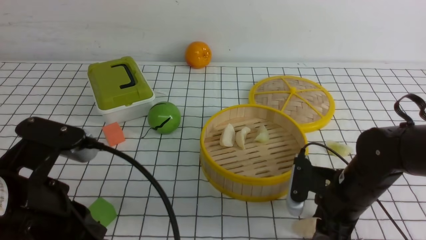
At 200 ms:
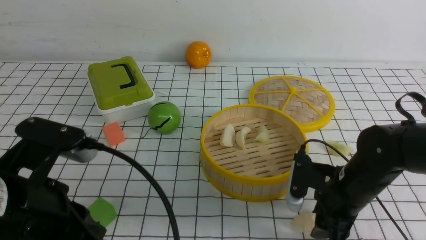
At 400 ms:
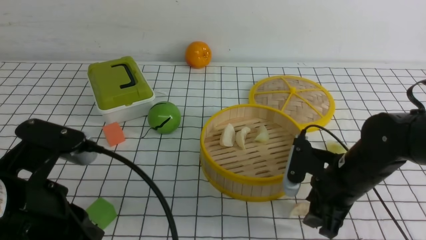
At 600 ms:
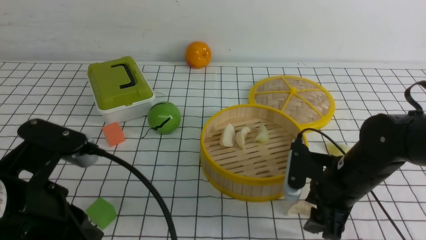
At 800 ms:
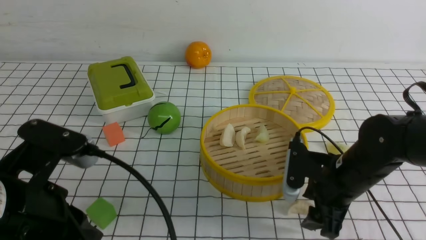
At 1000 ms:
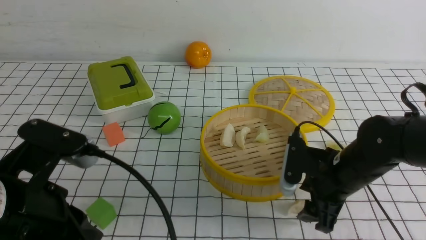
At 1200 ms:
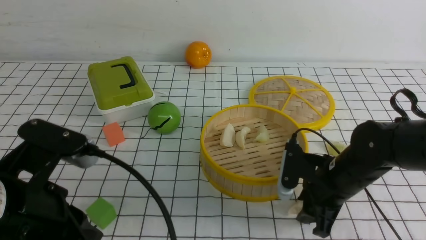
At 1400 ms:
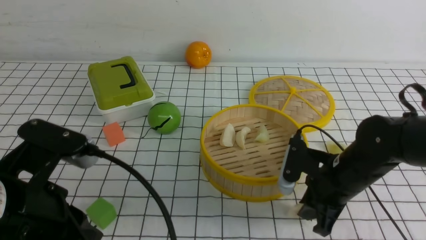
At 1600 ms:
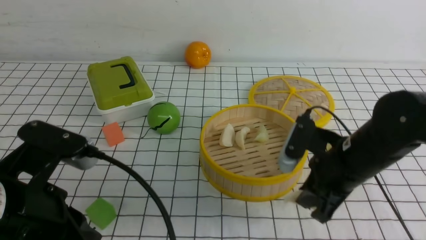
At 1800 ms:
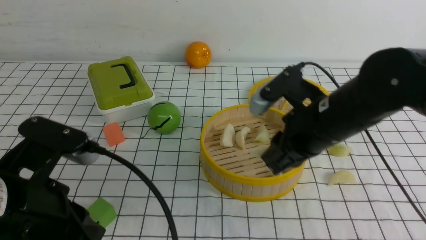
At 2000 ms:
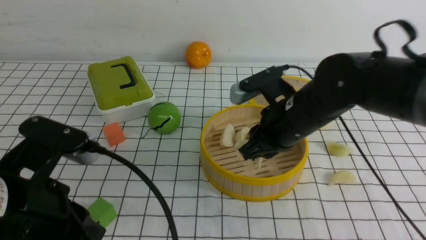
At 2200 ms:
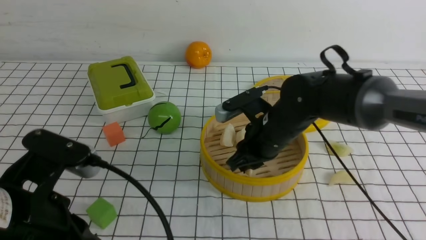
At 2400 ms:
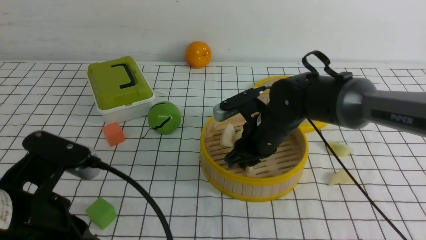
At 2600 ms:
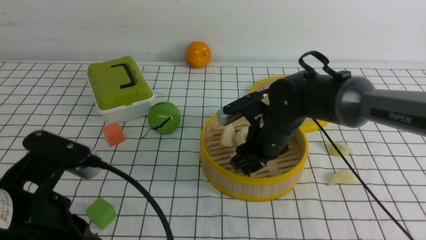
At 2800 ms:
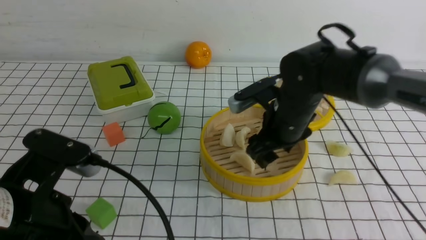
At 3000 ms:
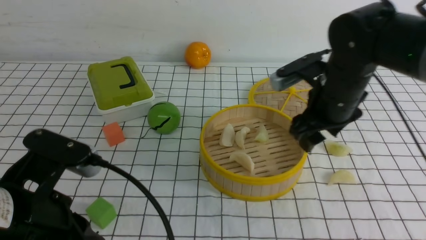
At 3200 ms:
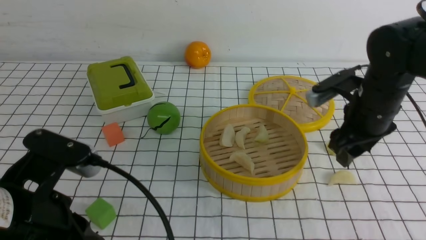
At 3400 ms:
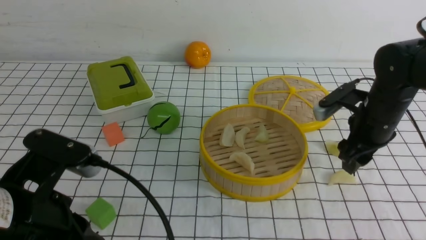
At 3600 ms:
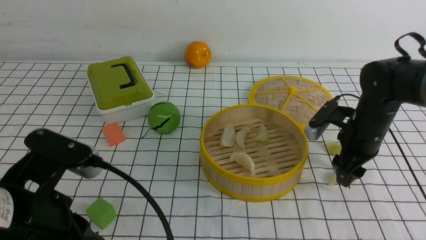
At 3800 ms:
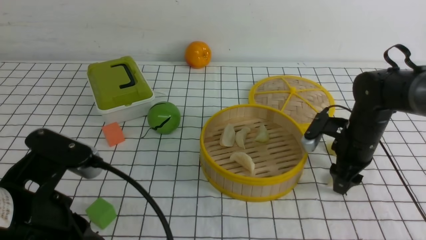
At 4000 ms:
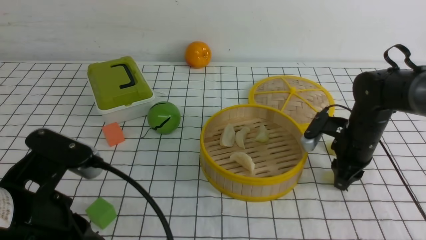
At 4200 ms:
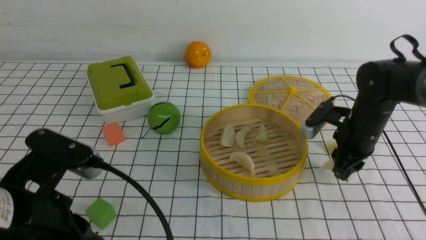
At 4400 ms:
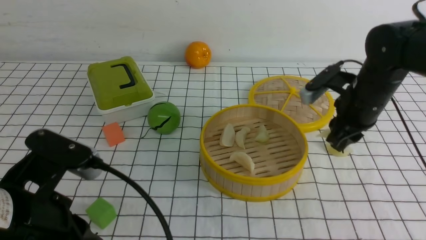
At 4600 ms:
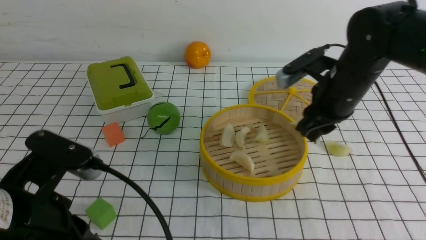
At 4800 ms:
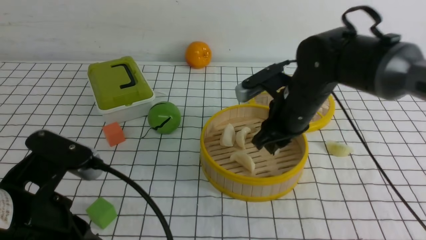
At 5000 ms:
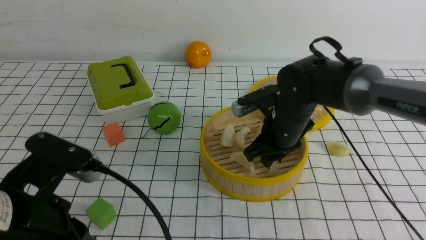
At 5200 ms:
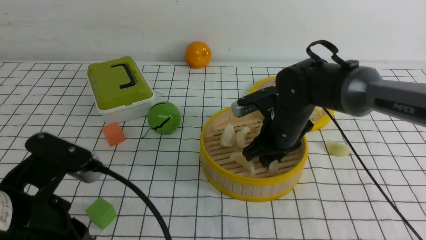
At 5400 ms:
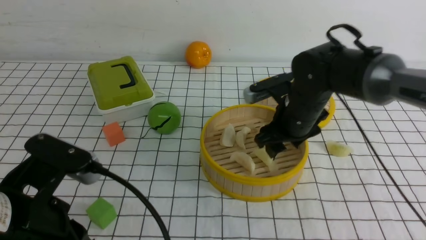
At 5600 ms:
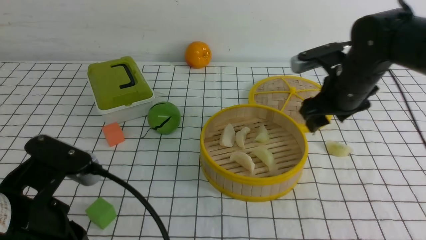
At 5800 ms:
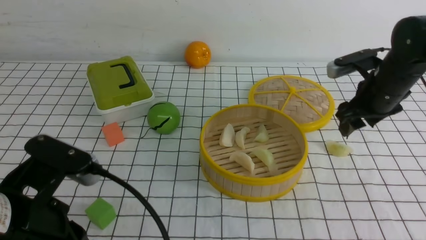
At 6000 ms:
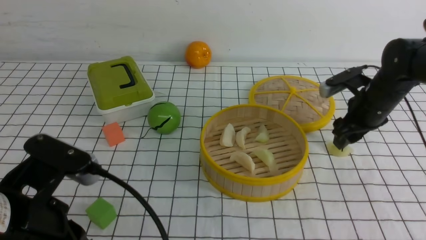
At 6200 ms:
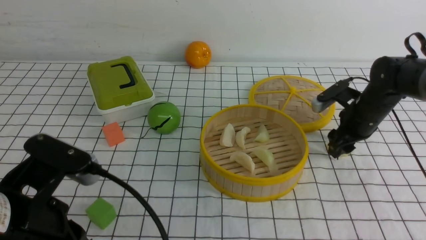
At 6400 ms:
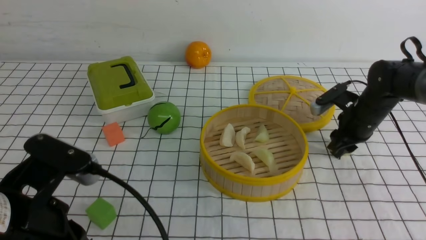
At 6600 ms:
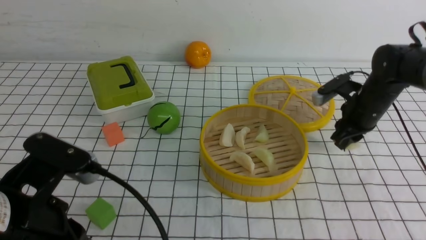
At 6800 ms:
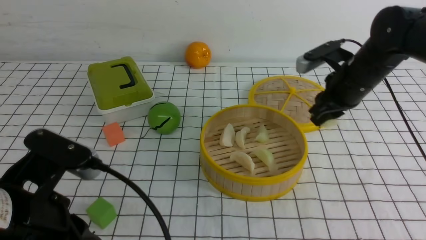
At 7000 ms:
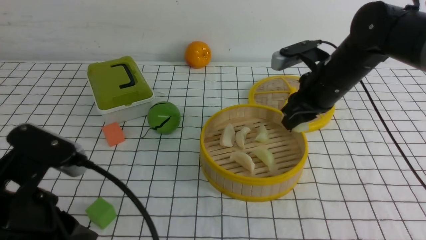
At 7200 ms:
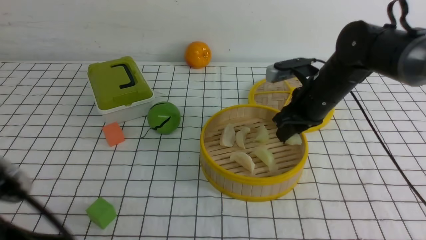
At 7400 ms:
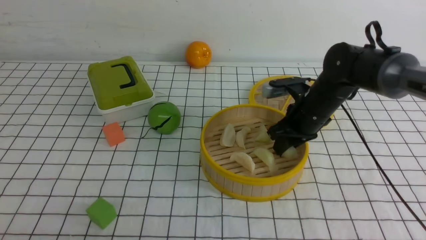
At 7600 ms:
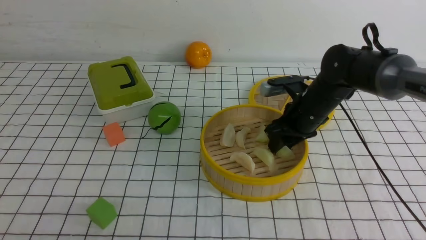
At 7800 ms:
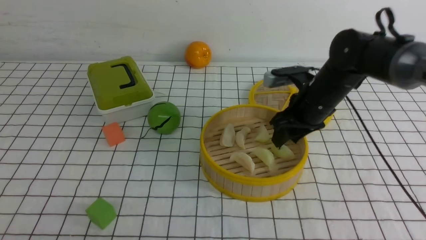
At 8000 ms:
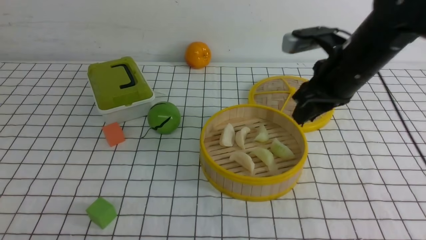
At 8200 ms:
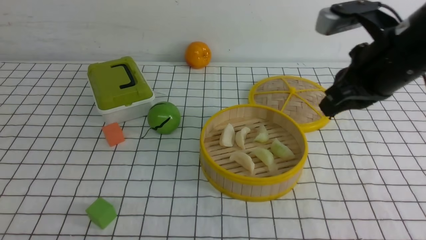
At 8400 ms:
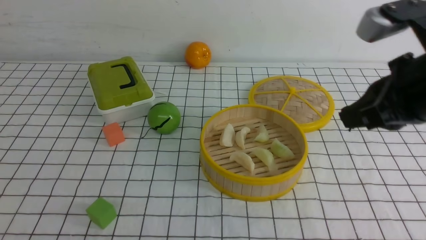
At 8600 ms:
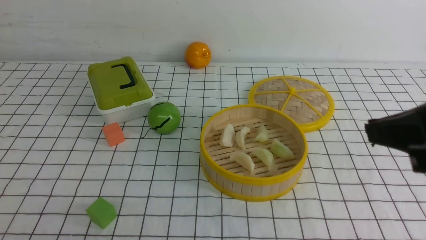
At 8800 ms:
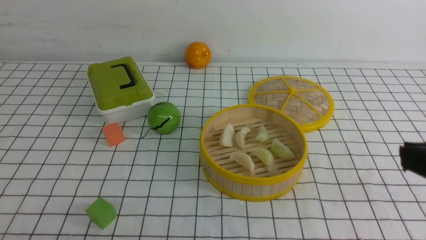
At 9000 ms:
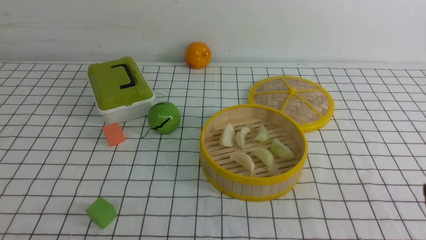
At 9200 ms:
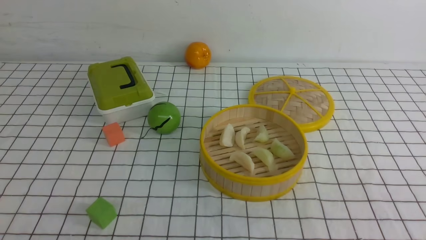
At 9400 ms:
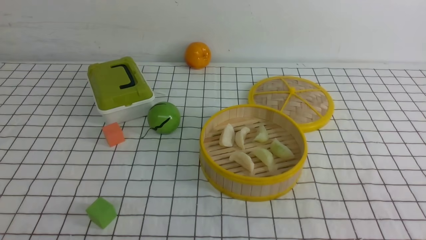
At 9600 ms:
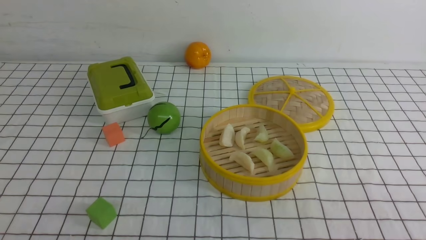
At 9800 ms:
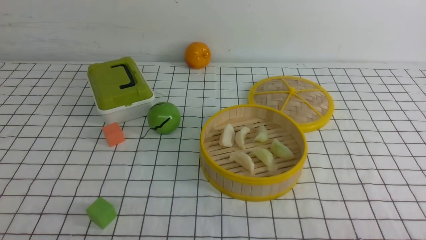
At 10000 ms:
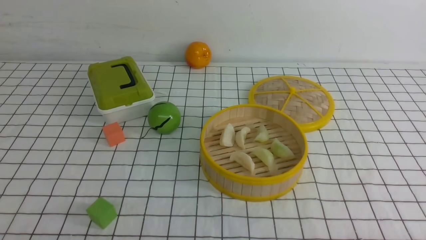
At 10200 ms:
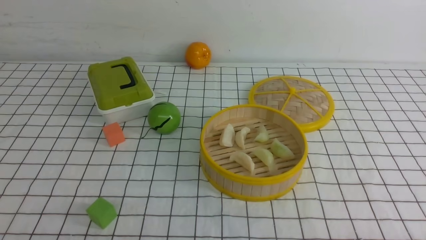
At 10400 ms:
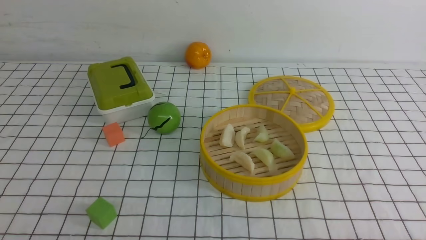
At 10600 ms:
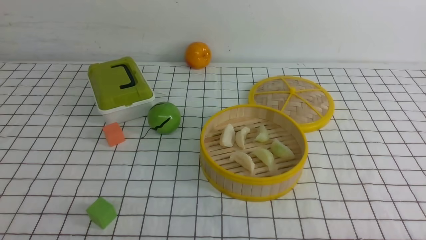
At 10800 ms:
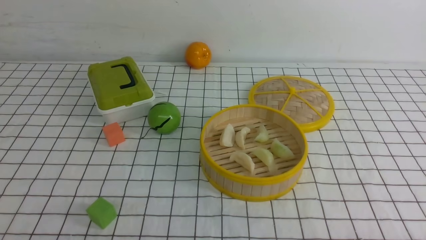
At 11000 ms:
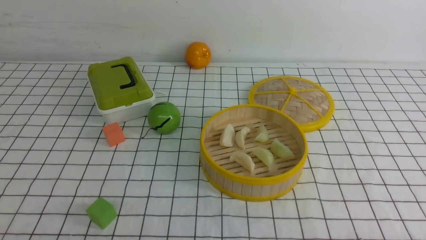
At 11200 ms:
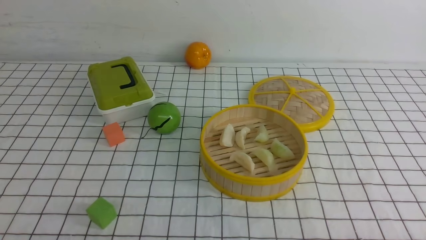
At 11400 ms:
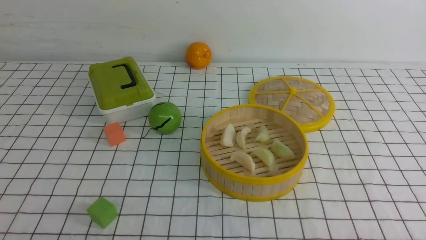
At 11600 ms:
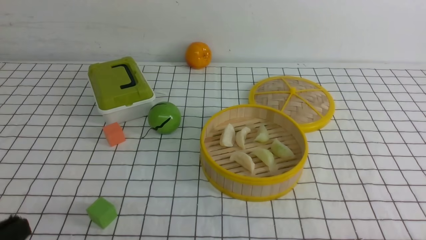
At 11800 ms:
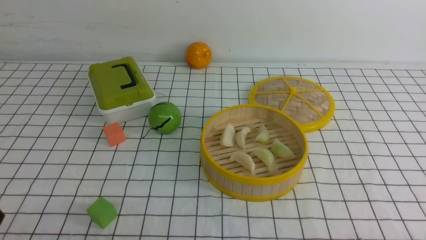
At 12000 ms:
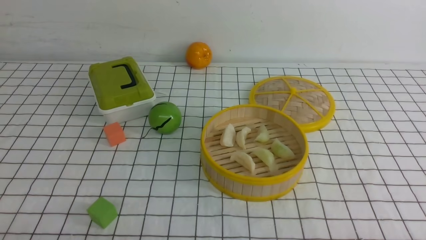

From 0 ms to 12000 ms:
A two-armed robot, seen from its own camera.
Task of the whole recording: put the dumplings into the steamer on the table with the white tablecloth.
Step, from 1400 ms to 2800 ms: use the right arm to put the dumpling into the steamer.
Step, from 3000 ms to 3800 ms: use the right arm to grab a dumpling.
Step, from 4200 ms to 5400 ms: use the right arm to put the dumpling into the steamer.
Step, from 5600 ms to 6200 ms: use the right arm to grab a dumpling.
Step, from 6400 ms to 7800 ms: use the right arm to put the dumpling into the steamer.
From 0 ms to 1600 ms: The right gripper moves upward, some 5 cm, and closes.
From 1600 ms to 3000 ms: The right gripper shifts roughly 5 cm forward, and opens its fingers.
From 3000 ms to 4400 ms: The right gripper travels to the right by approximately 10 cm, and closes.
From 4400 ms to 6000 ms: The right gripper moves roughly 10 cm to the left and comes back, and opens up.
From 6000 ms to 7600 ms: The right gripper is displaced to the left by about 10 cm, and closes; the left gripper travels backward and to the left by about 10 cm.
From 7600 ms to 9000 ms: The right gripper shifts some 35 cm backward and upward, and closes its fingers.

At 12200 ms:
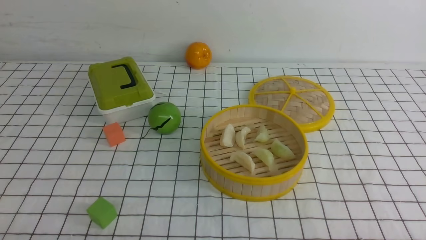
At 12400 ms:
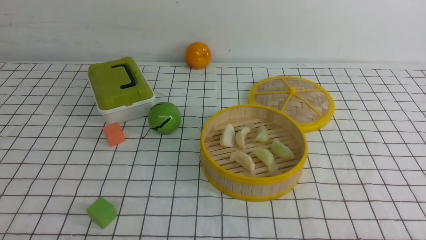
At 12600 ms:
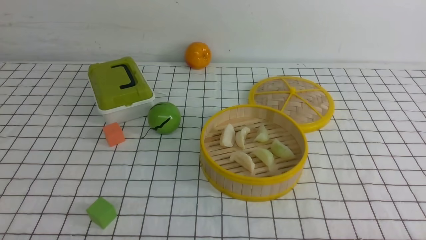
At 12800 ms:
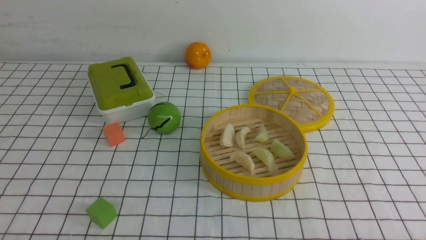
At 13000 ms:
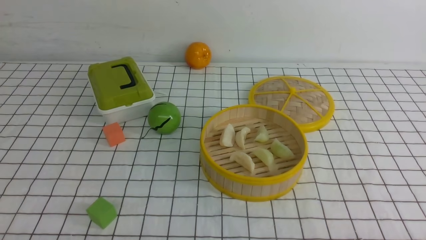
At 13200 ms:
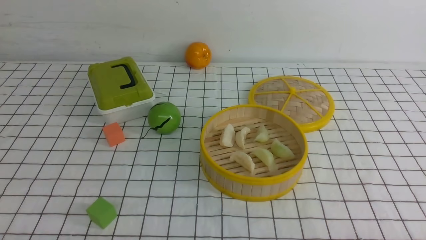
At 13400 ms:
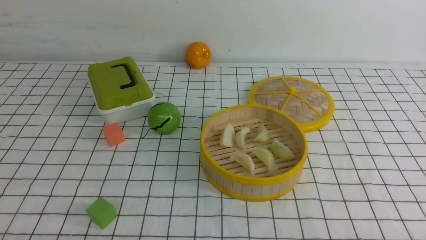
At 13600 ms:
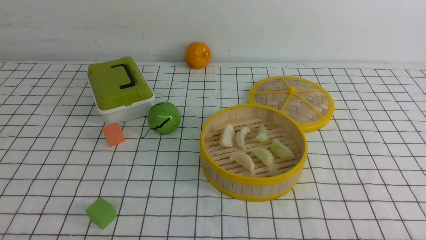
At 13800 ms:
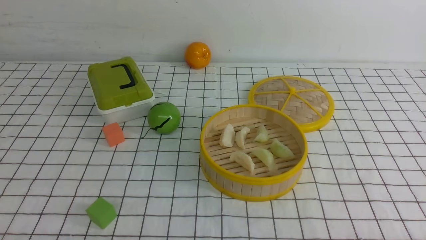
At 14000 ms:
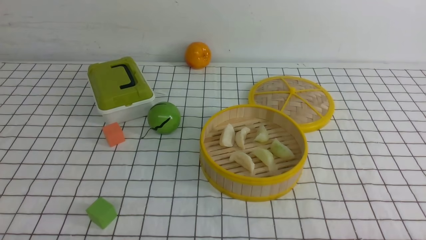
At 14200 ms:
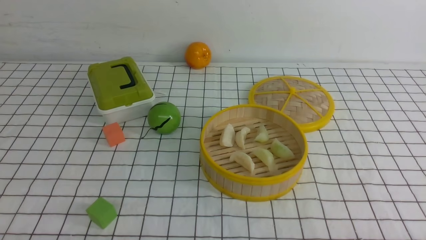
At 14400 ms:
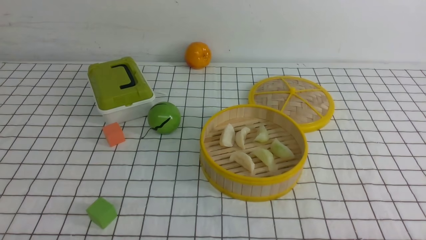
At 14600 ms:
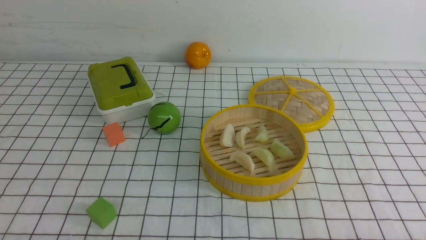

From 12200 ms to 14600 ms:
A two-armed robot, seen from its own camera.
Task of the whole recording: put the dumplings into the steamer on the table with the white tablecloth.
From 13400 ms to 14600 ms: Both grippers stay put.
